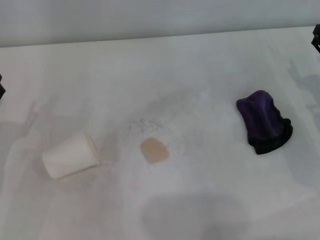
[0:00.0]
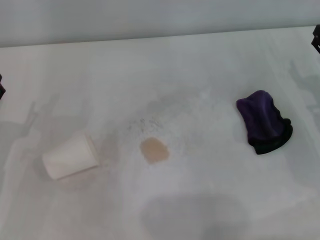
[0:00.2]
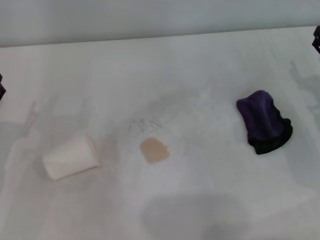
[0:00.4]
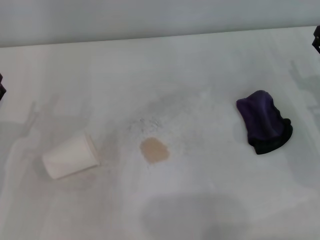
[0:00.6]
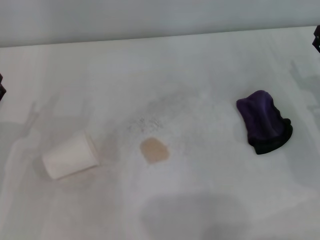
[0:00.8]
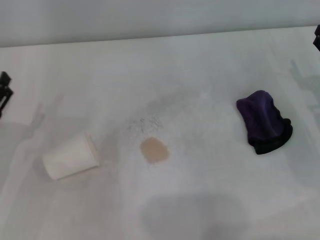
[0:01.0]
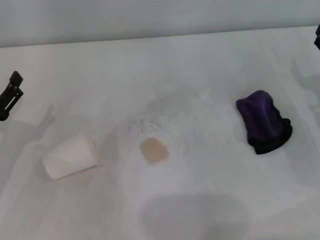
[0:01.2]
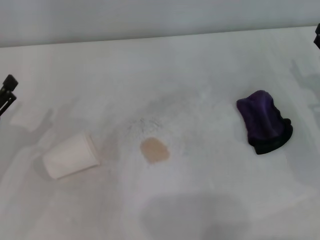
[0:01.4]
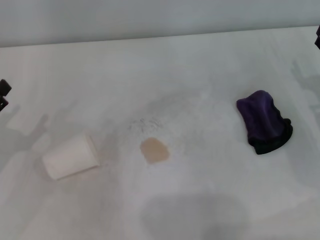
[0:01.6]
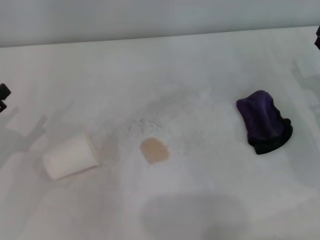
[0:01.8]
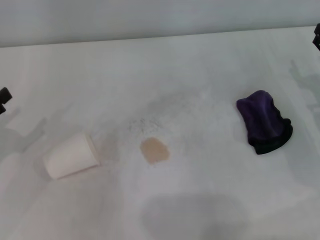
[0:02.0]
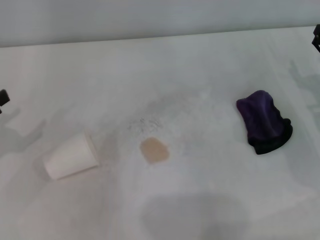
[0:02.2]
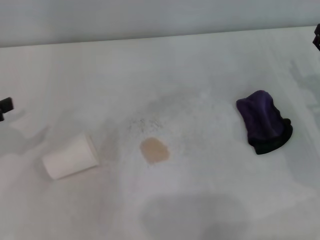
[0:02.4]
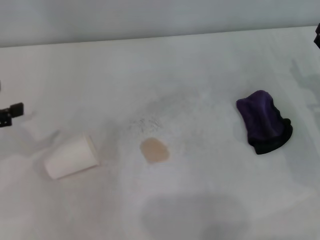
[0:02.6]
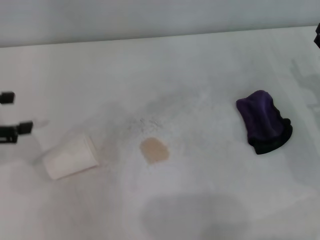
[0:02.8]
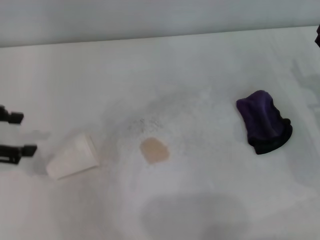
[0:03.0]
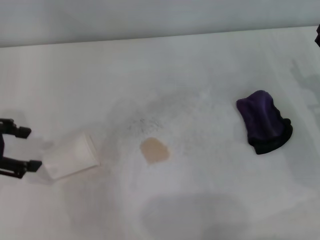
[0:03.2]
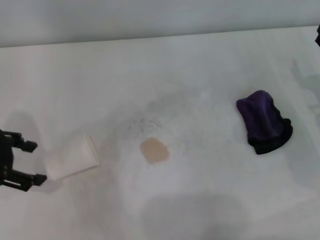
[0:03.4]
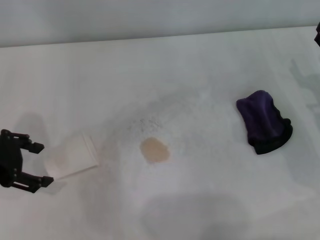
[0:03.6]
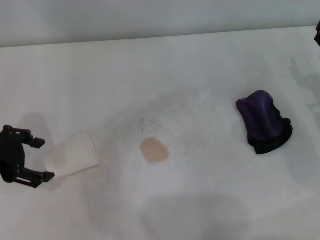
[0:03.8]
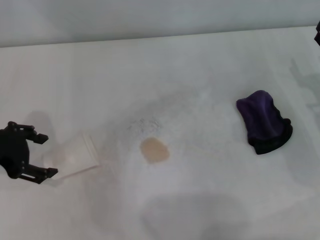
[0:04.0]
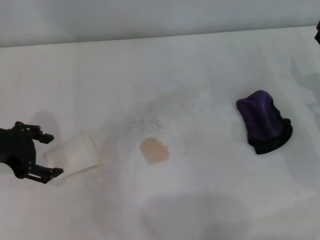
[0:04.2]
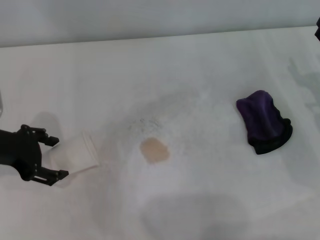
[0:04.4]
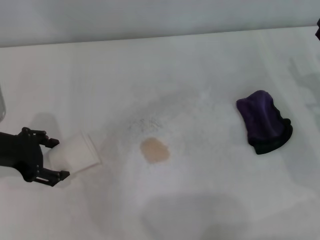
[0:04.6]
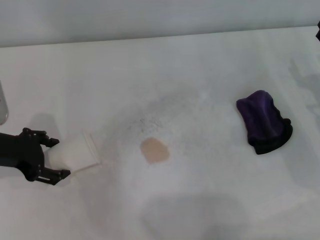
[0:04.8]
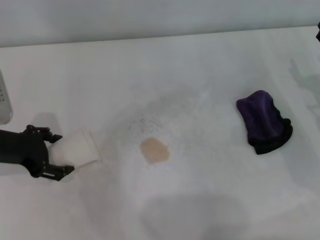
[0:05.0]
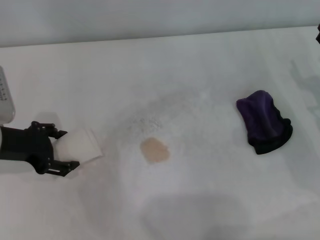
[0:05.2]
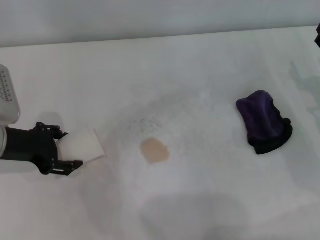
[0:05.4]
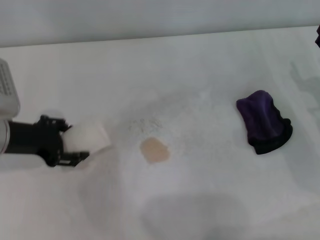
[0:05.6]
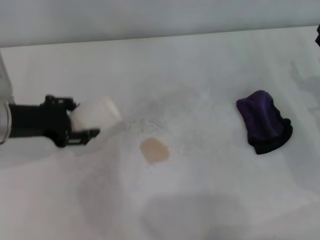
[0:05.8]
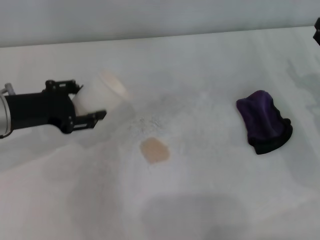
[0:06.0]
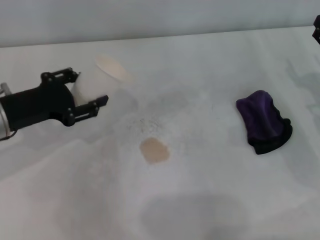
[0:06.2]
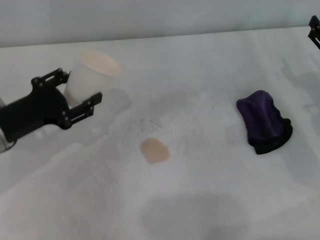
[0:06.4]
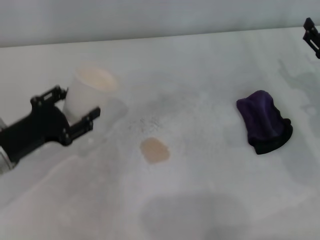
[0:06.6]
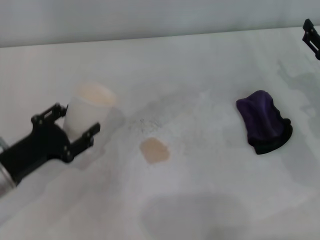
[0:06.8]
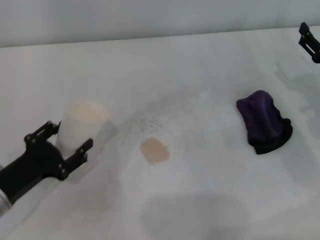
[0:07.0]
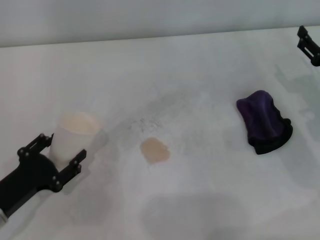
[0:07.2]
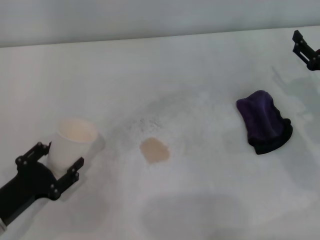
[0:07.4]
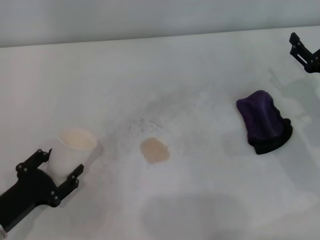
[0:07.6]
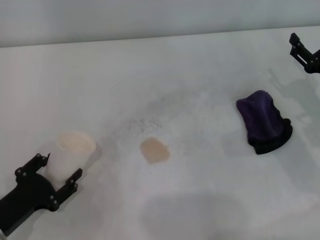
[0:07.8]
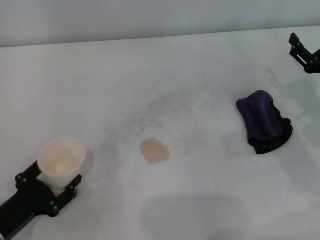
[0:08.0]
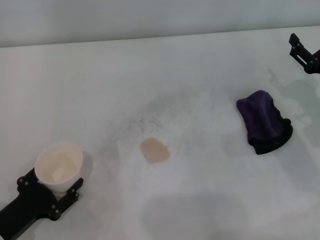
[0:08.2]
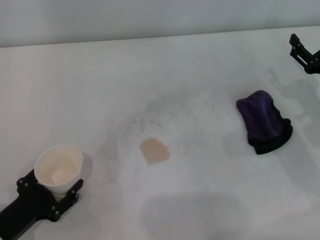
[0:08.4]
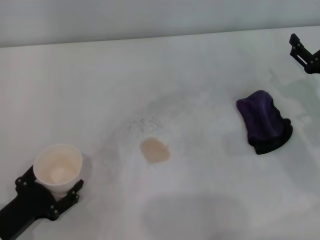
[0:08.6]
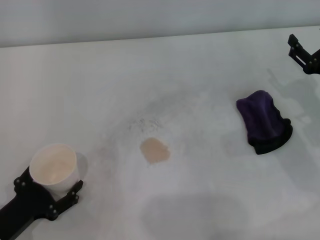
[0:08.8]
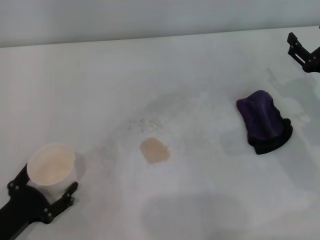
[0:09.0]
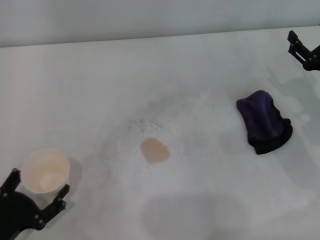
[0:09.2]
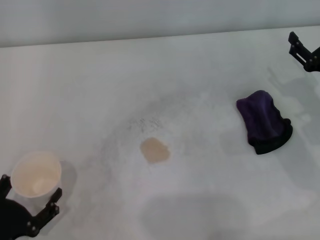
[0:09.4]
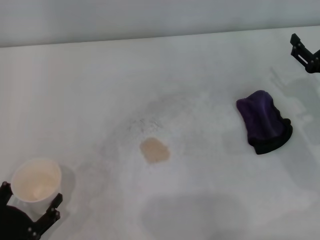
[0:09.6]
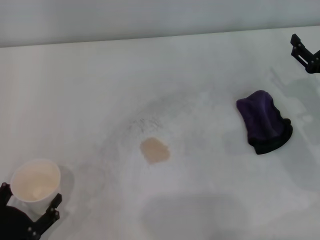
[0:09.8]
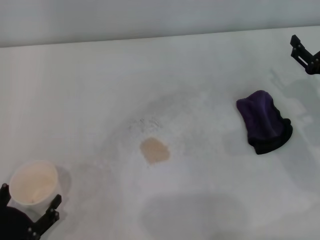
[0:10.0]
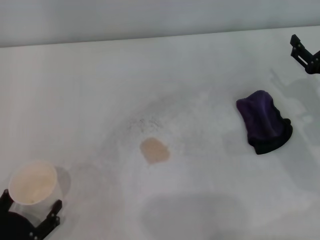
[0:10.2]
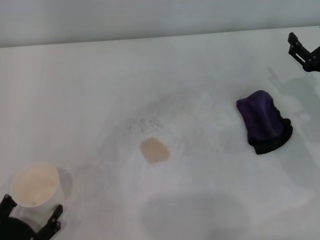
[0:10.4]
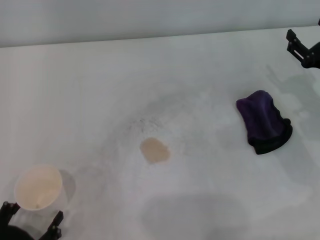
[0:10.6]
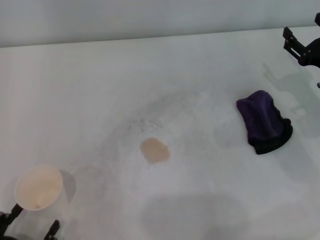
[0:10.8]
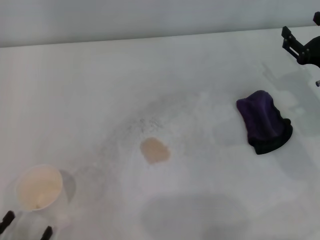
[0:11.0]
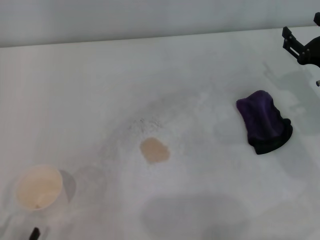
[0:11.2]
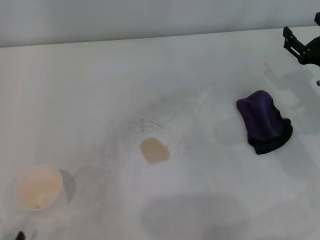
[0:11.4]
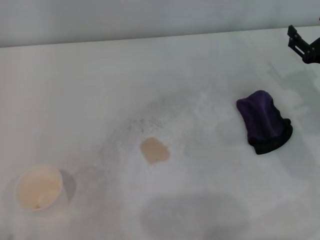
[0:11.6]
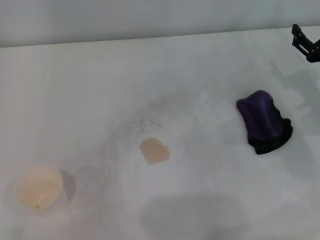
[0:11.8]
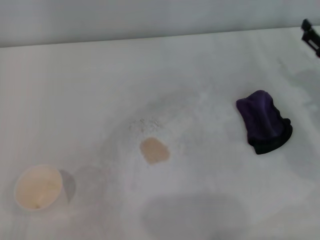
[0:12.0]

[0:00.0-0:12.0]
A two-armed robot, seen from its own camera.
Step, 0:00.0 to 0:05.4: Grasp the paper cup with the left gripper.
Step, 0:05.6 to 0:10.4: Stand the paper cup upright with the left gripper.
0:01.6 to 0:03.0: The left gripper is displaced upward and forward by roughly 15 cm.
0:03.0 to 0:04.4: The left gripper heads to the right, covering roughly 5 cm.
0:04.4 to 0:06.0: The left gripper closes its fingers.
0:06.0 to 0:07.6: The left gripper moves backward and downward, roughly 20 cm.
0:07.6 to 0:09.0: The left gripper opens up.
0:09.0 to 0:10.4: The left gripper is displaced backward by approximately 5 cm.
0:10.4 to 0:12.0: The left gripper goes about 5 cm backward.

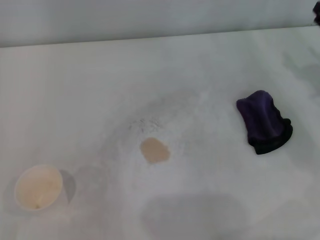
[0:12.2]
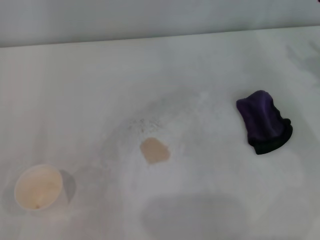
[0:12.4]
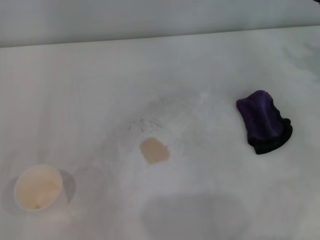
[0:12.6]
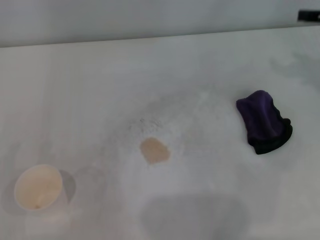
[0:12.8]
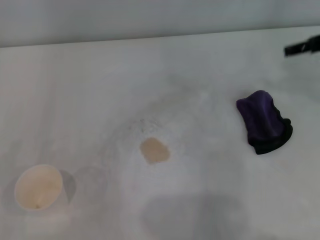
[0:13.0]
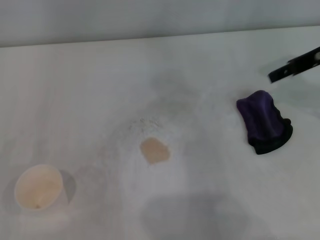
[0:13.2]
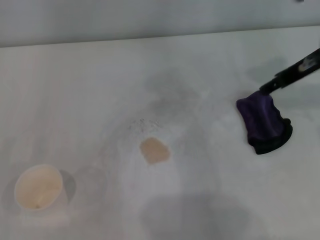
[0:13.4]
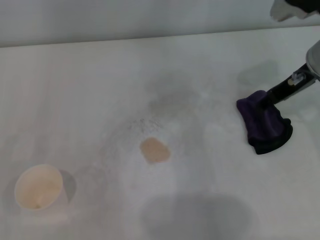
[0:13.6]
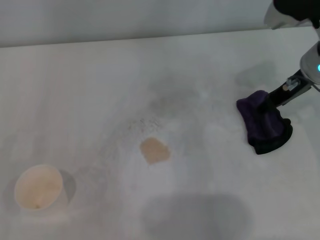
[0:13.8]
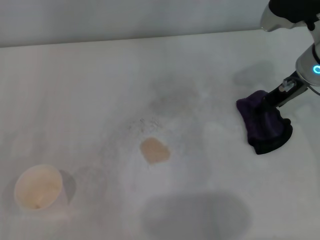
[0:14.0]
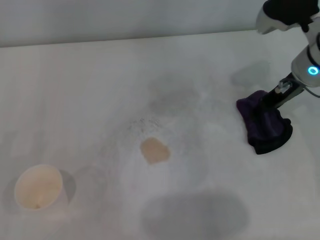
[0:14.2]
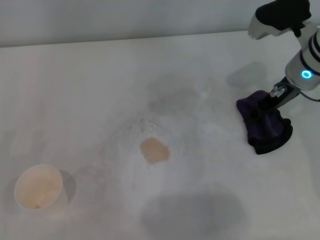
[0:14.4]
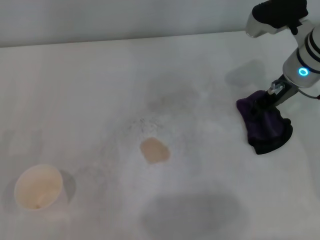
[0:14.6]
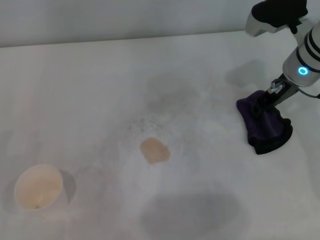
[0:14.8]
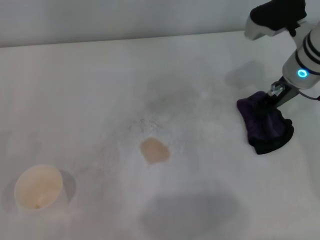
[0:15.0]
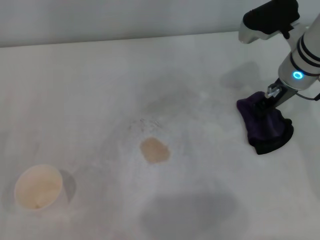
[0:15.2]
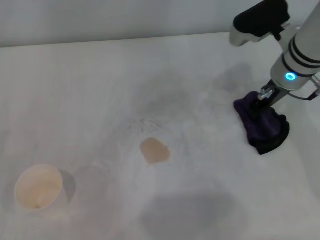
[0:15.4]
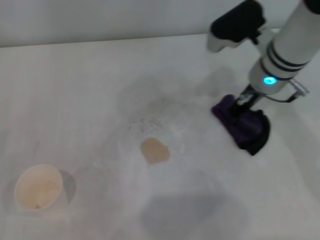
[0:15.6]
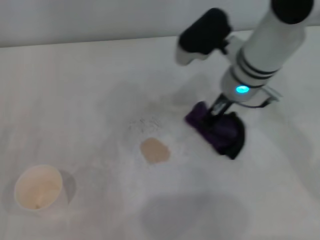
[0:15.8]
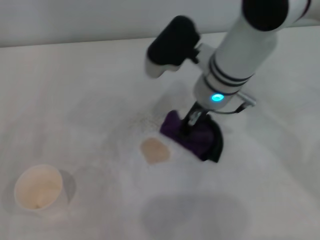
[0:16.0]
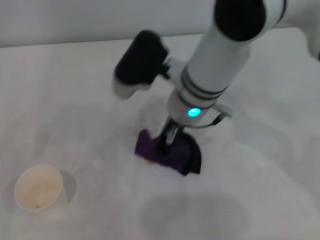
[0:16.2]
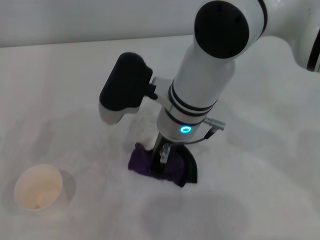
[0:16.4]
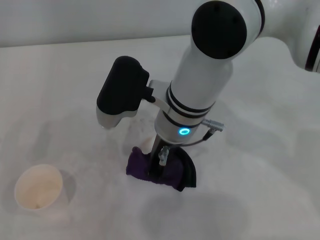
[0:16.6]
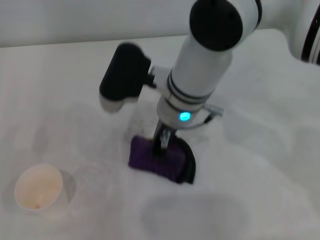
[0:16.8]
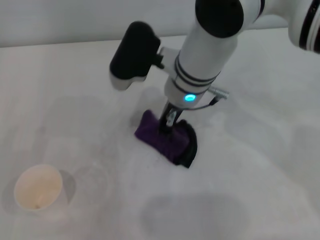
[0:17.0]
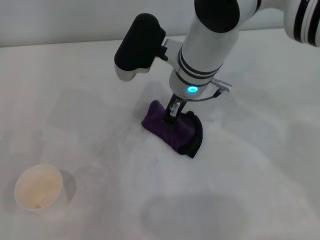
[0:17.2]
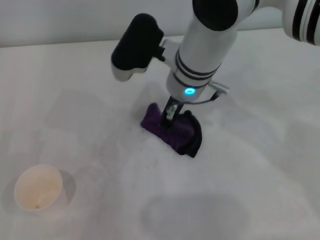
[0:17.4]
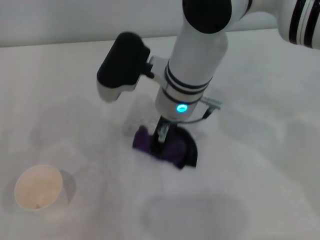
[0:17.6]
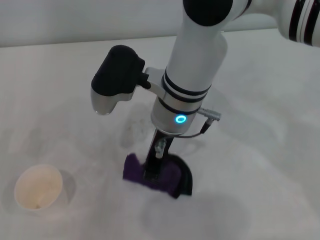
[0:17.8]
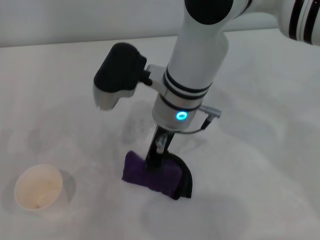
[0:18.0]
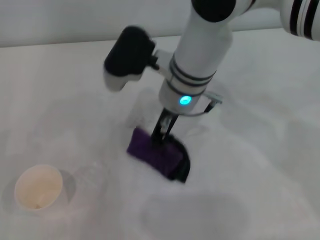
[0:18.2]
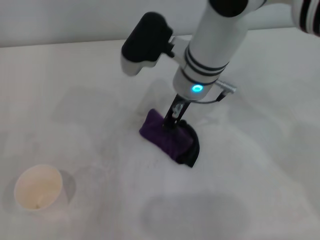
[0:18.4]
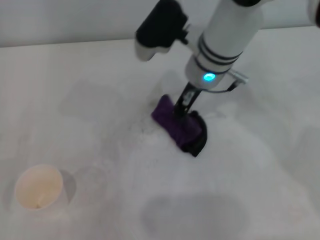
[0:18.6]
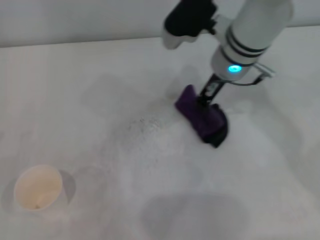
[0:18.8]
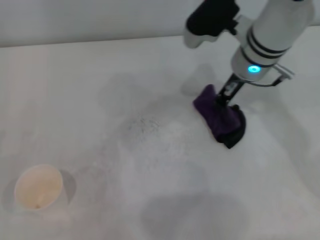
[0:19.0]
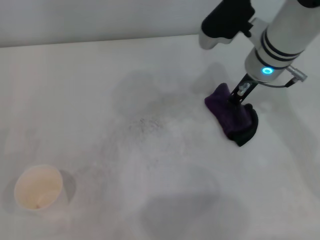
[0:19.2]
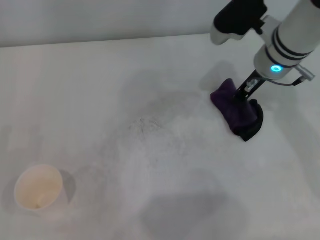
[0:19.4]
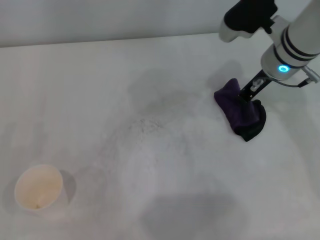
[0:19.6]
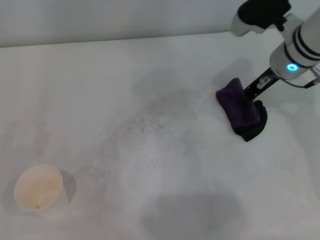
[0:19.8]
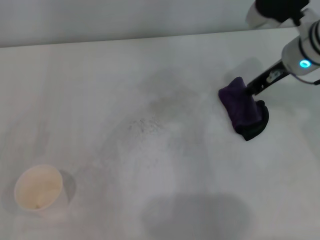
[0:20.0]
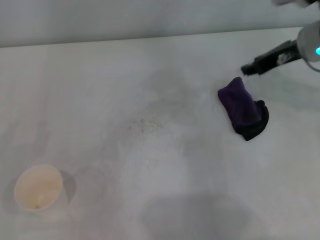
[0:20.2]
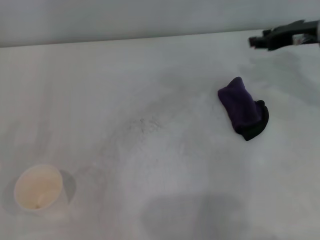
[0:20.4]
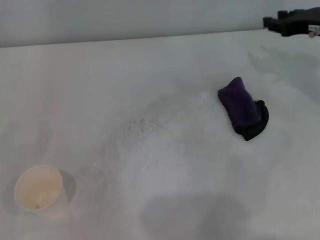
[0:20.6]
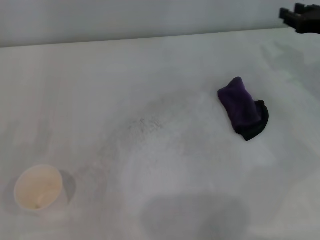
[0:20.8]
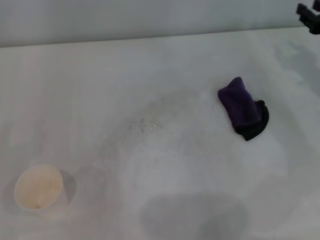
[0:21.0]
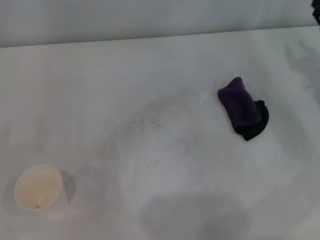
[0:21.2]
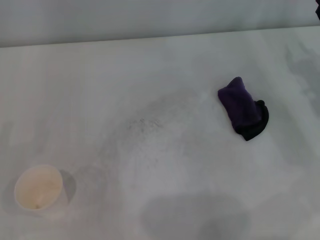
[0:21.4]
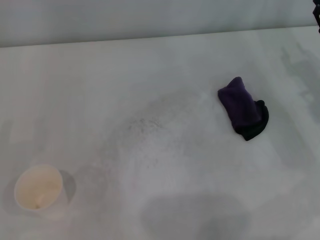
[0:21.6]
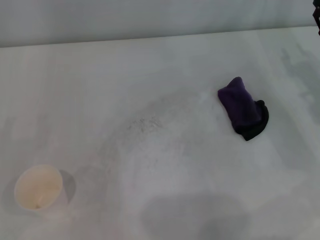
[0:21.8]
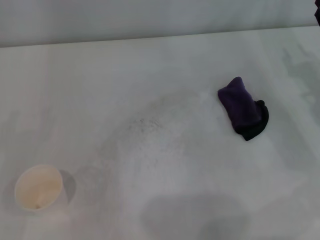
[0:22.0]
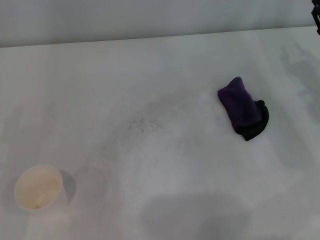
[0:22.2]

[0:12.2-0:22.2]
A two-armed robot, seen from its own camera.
Step, 0:12.2 to 0:15.4: Grasp the rag with the right gripper.
Step, 0:15.6 to 0:19.0: Wipe the stains off the table with the right gripper.
Step, 0:19.4 to 0:19.8: Place the rag on the table with the right gripper.
0:12.2 to 0:13.6: The right gripper goes approximately 15 cm to the left, upward and forward.
0:13.6 to 0:15.0: The right gripper closes its fingers.
0:15.0 to 0:16.4: The right gripper heads to the left, covering approximately 20 cm.
0:16.4 to 0:18.0: There are only small adjustments of the grippers.
0:18.0 to 0:19.4: The right gripper moves to the right, approximately 15 cm.
0:19.4 to 0:20.8: The right gripper travels to the right by some 15 cm, and opens.
0:20.8 to 0:22.2: The right gripper changes place by some 5 cm.
